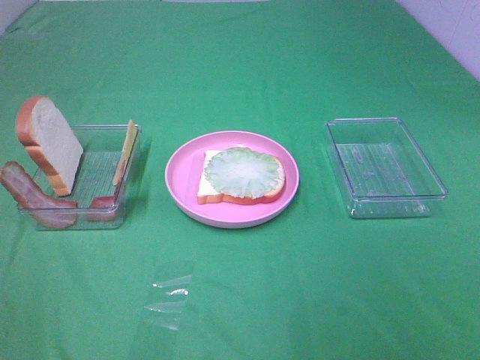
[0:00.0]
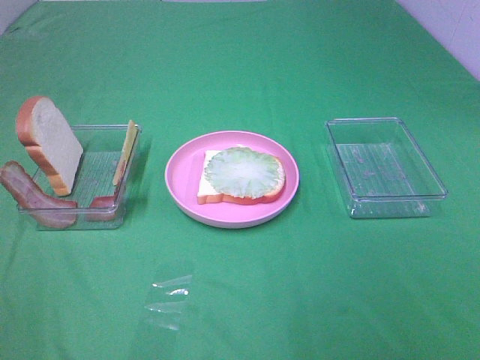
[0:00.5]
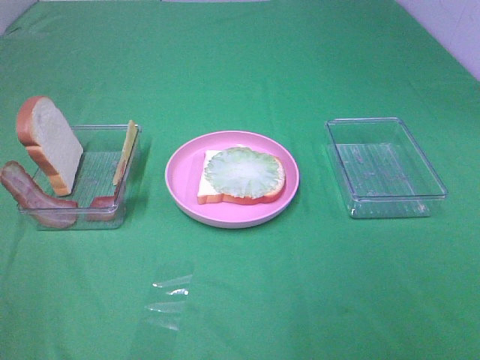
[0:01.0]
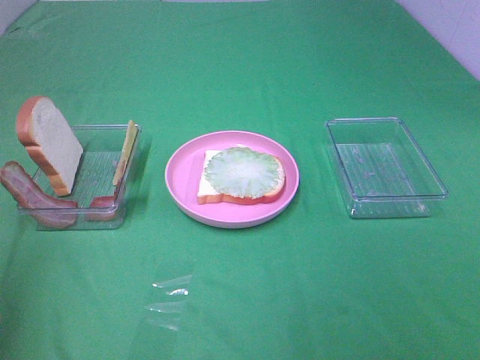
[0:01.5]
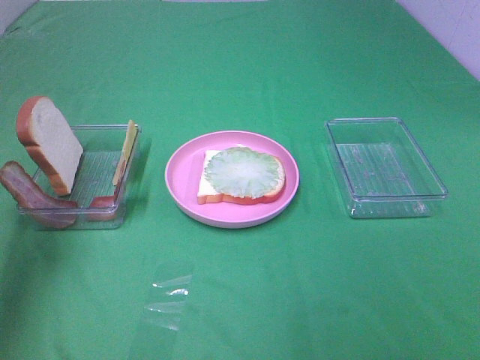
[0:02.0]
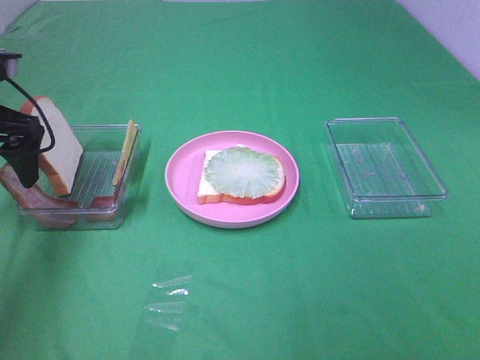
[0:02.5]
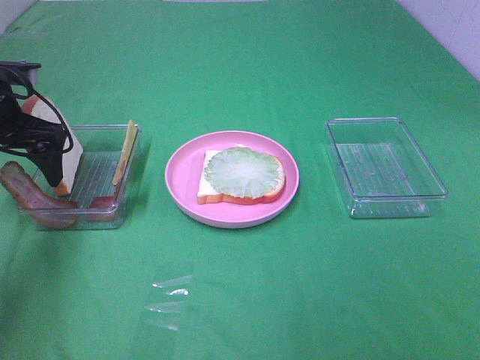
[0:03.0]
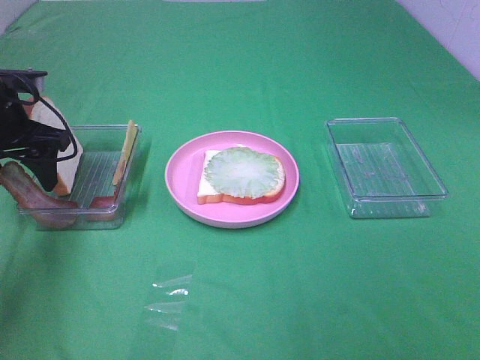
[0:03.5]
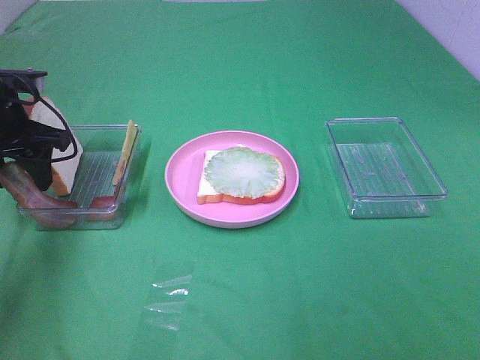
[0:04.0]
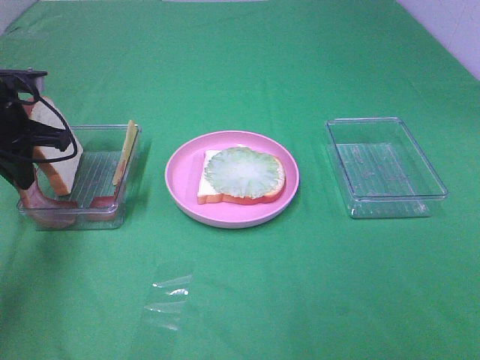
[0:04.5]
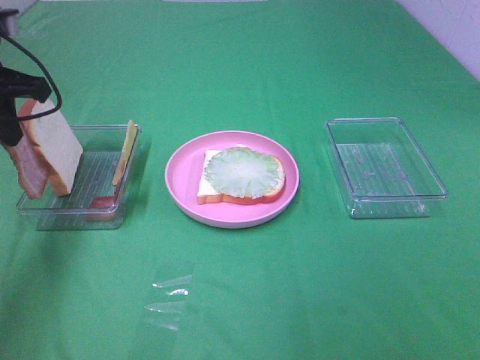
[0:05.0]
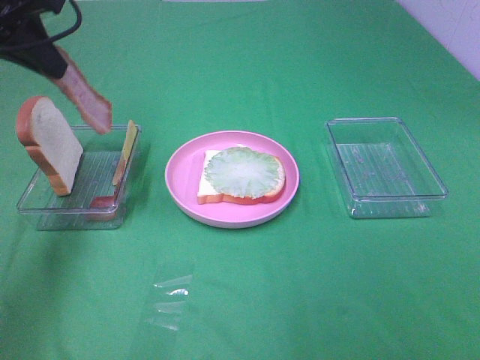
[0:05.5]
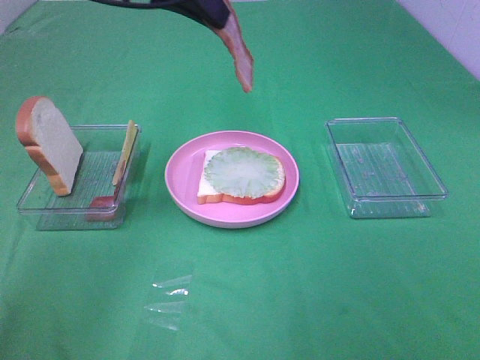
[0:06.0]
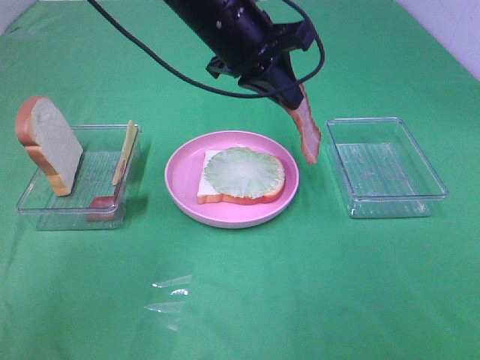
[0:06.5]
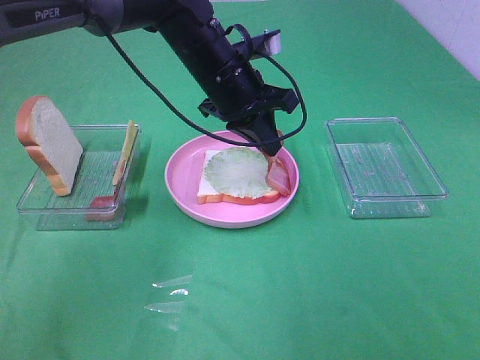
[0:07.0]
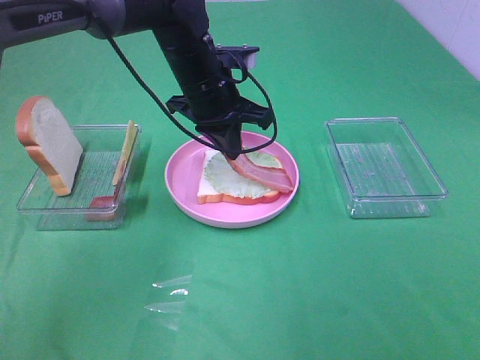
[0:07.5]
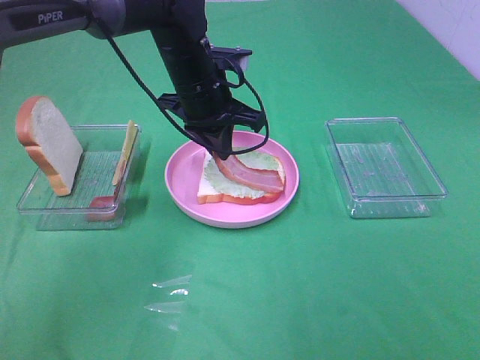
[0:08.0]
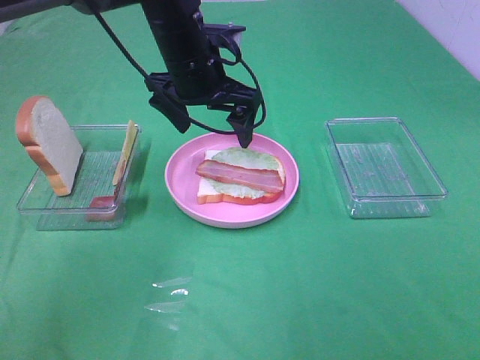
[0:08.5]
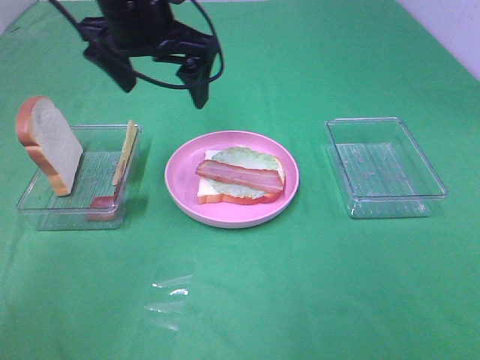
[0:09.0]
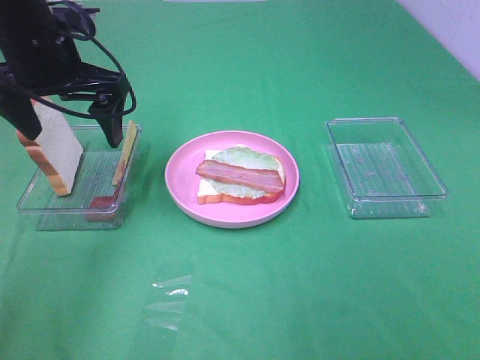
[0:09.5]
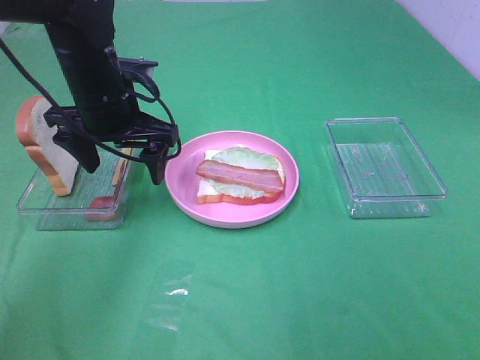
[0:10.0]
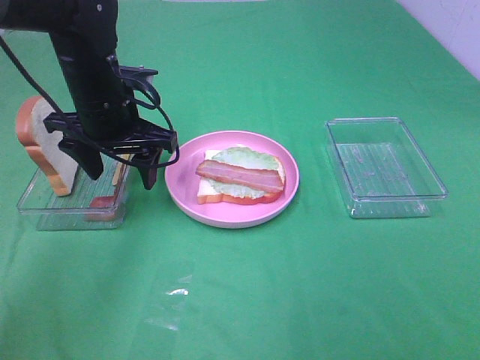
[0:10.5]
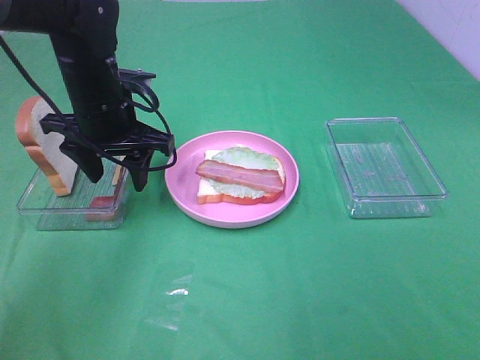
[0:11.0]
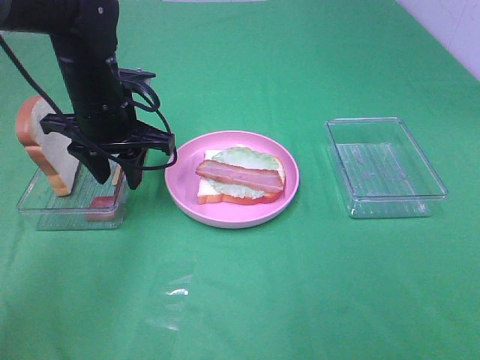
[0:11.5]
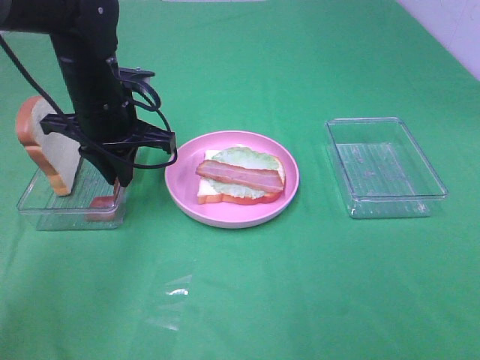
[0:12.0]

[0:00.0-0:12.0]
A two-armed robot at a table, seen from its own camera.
Task of the whole recording: Make sandwiches.
Step, 0:00.0 to 0:04.0: Left hand:grab the bacon.
Step, 0:04.5 to 0:08.0: Left hand:place bacon on lettuce slice.
0:00.0 to 0:02.0: The left gripper is displaced forward by roughly 30 cm.
0:02.0 to 0:04.0: The left gripper goes approximately 15 cm downward and forward, and closes up.
0:04.0 to 0:06.0: The left gripper goes some 25 cm to the right and upward, and closes.
0:06.0 to 0:08.0: The left gripper shifts about 15 cm downward.
0:08.0 to 0:10.0: The left gripper shifts about 10 cm to the left, and opens up.
0:10.0 to 0:12.0: The left gripper closes its fingers.

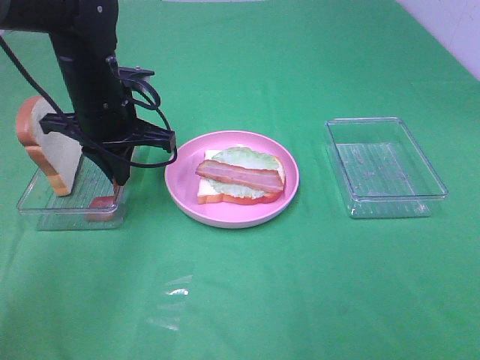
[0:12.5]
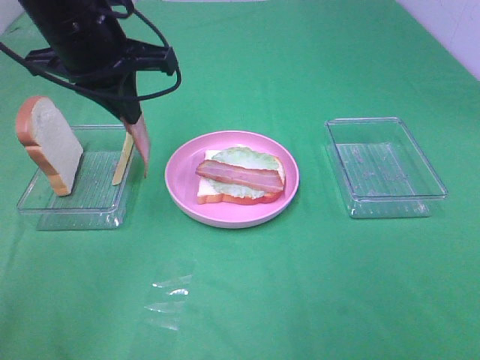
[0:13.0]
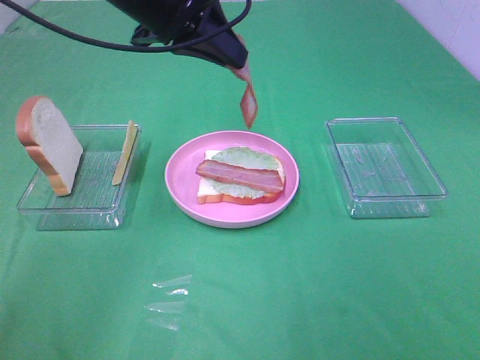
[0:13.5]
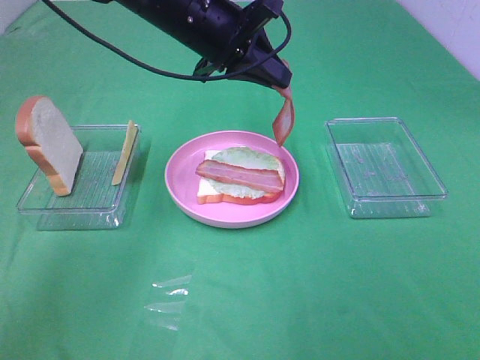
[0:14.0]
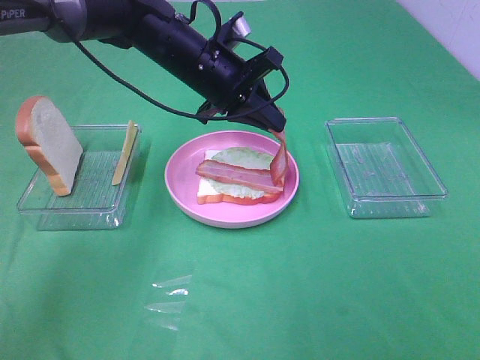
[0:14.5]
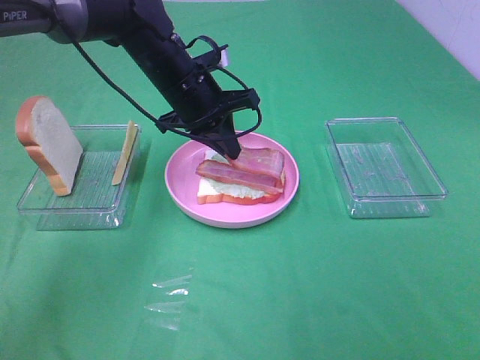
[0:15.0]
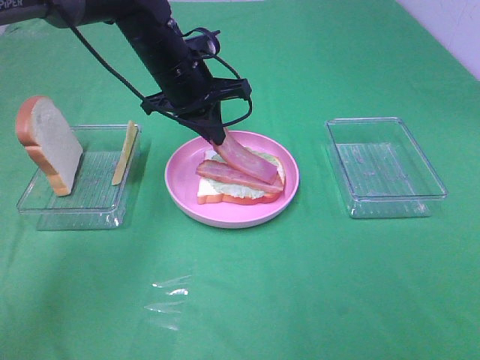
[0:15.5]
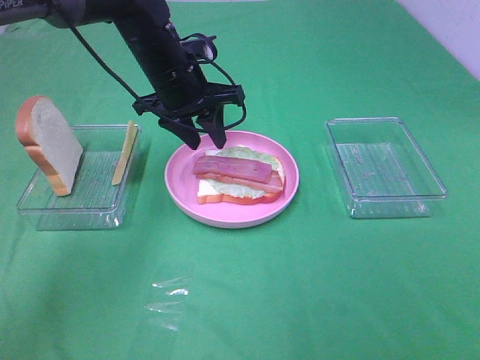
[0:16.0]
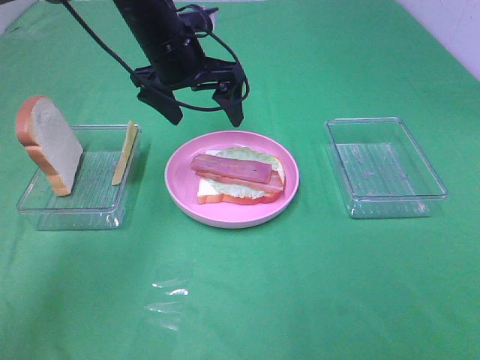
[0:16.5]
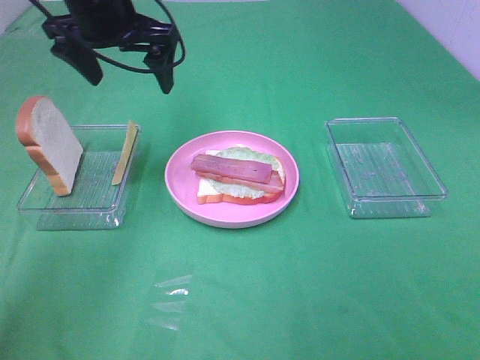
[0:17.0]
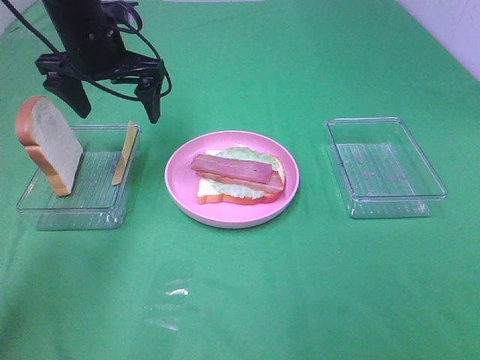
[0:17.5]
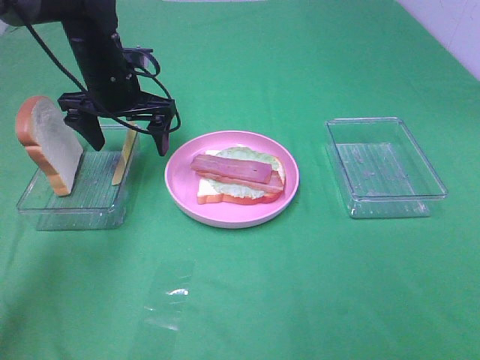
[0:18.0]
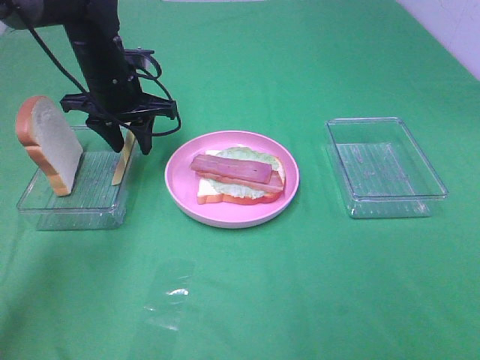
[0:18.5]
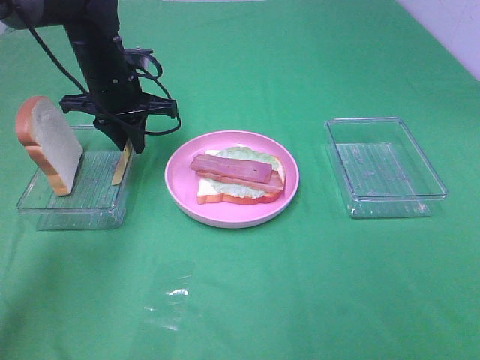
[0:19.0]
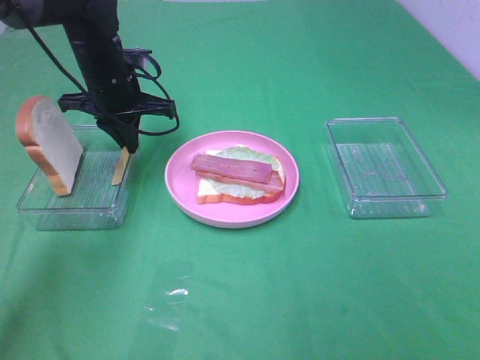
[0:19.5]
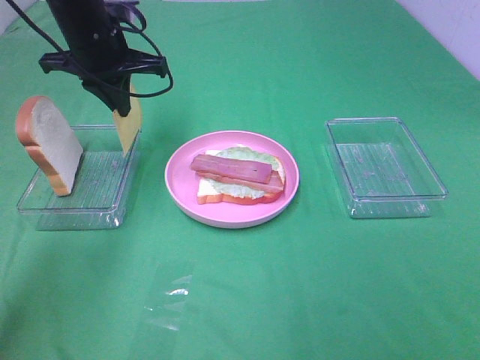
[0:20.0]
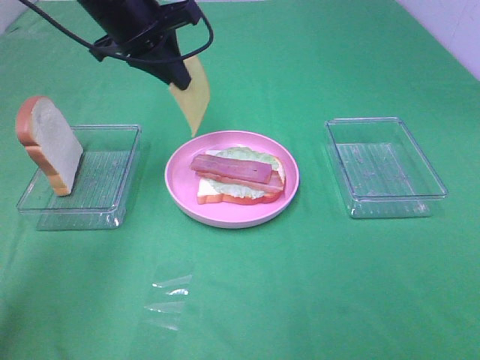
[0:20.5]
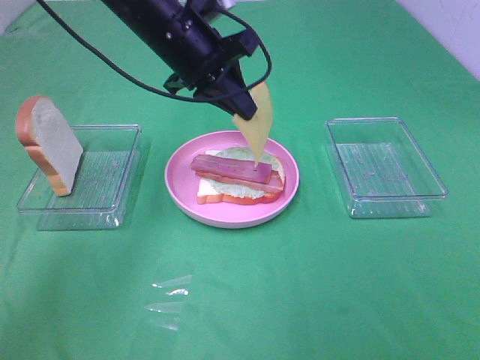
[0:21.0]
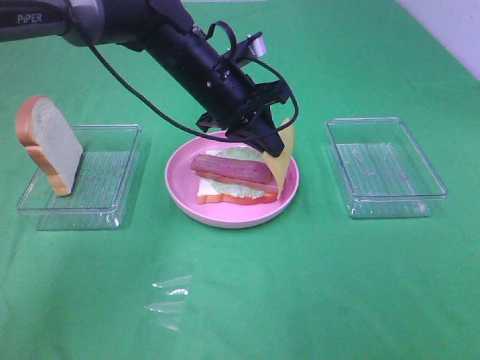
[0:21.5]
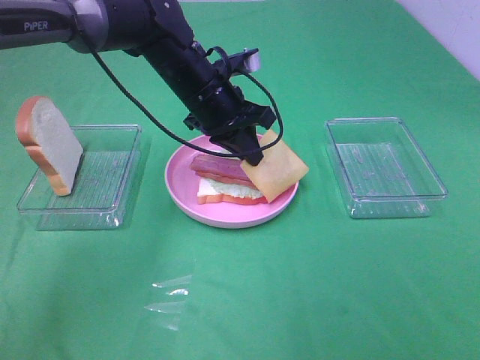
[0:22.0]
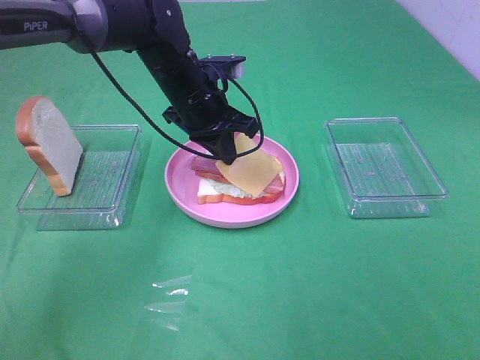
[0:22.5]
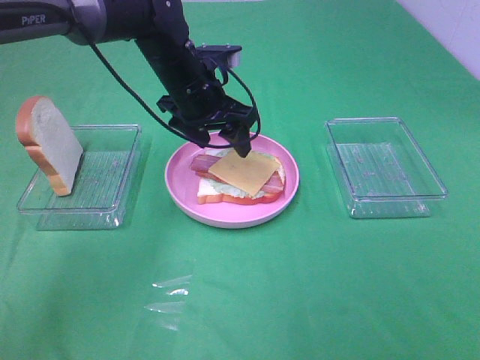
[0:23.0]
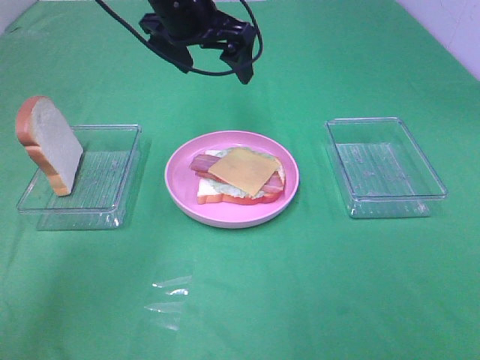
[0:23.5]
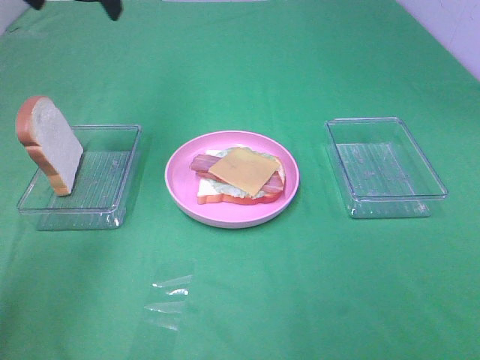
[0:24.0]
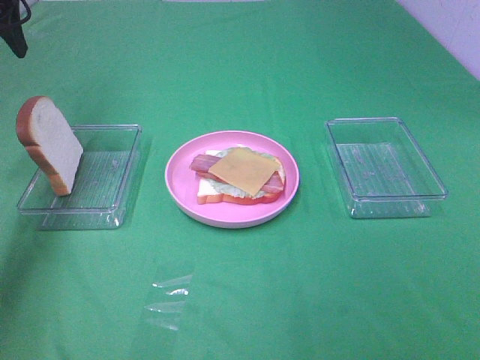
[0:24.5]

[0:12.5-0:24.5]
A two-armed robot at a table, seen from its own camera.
Task of the whole recording: Make sandwiches.
Step, 0:12.5 to 0:16.0: Left hand:place bacon on bacon.
Step, 0:16.5 to 0:19.0: Left hand:grab the cheese slice.
Step, 0:19.5 to 0:23.0: Left hand:place the cheese slice on top of the bacon.
0:12.5 to 0:14.5: The left gripper moves to the right, approximately 10 cm, and travels upward and back again, roughly 10 cm each way.
0:14.5 to 0:16.5: The left gripper changes place by about 5 cm, and opens its fingers.
0:16.5 to 0:18.5: The left gripper travels to the left and downward by roughly 10 cm, and closes its fingers.
0:18.5 to 0:20.5: The left gripper goes roughly 10 cm upward, and closes.
0:20.5 to 0:22.5: The left gripper goes approximately 15 cm downward and to the right.
0:22.5 to 0:24.5: The left gripper heads to the left and upward, covering some 30 cm, and opens.

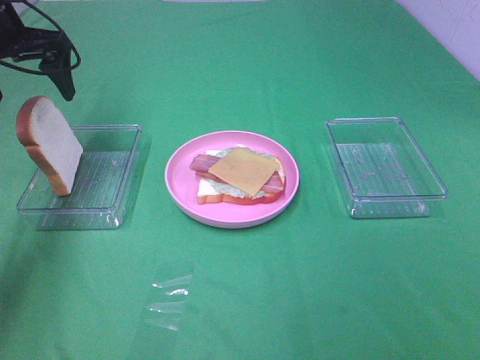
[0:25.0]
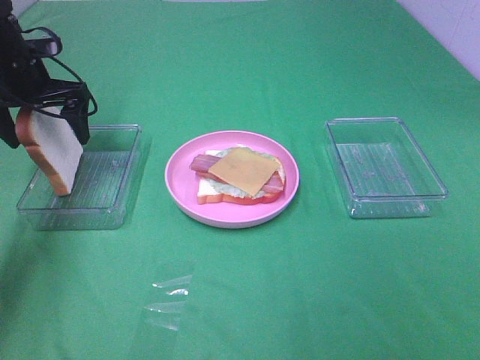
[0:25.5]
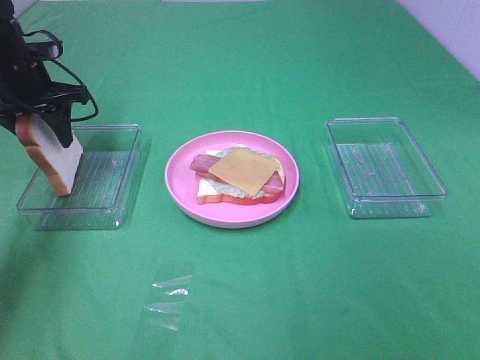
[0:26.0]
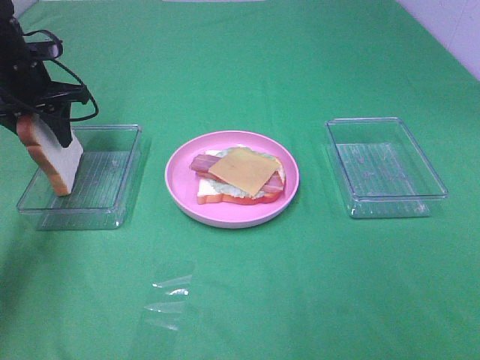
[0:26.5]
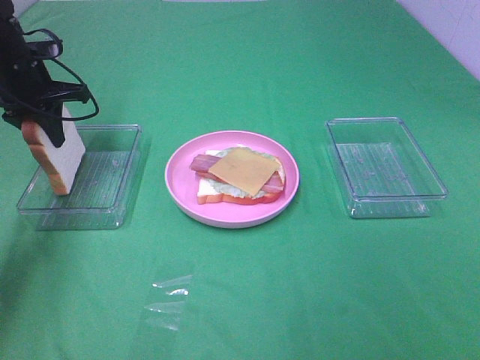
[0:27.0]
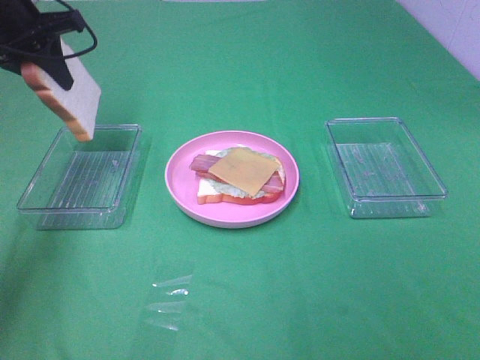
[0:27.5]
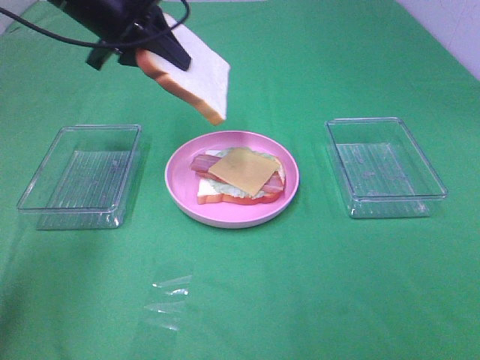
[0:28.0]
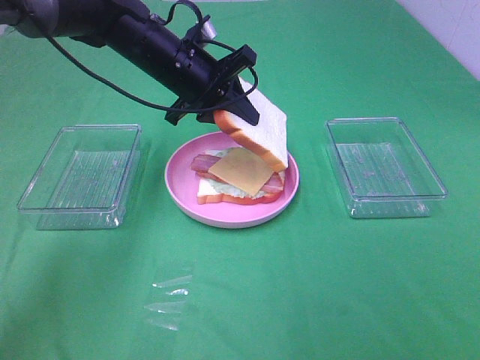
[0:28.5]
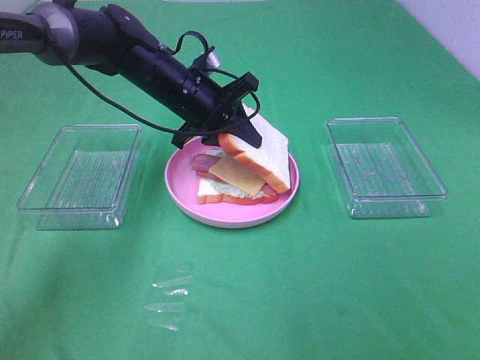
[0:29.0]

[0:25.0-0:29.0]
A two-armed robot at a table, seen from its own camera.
Task of the whole recording: Make sandwiches.
0:25.0 to 0:27.0: The left gripper shifts some 5 cm downward, and closes up.
0:27.0 to 0:29.0: The left gripper moves to the right, approximately 20 cm.
